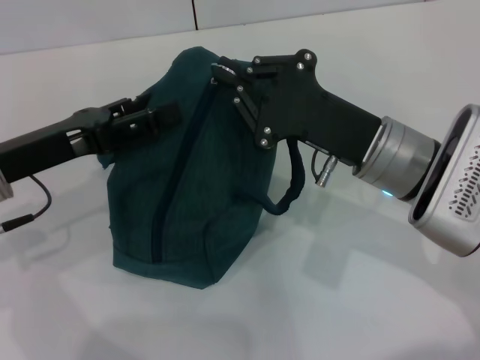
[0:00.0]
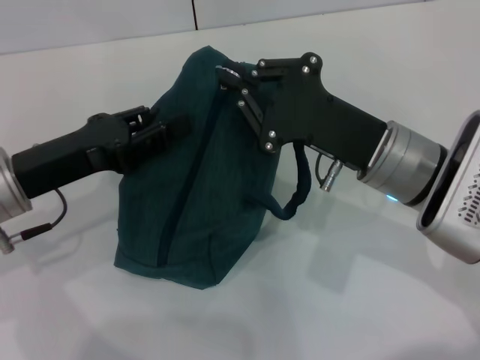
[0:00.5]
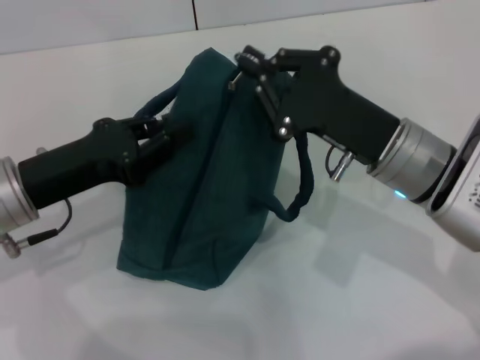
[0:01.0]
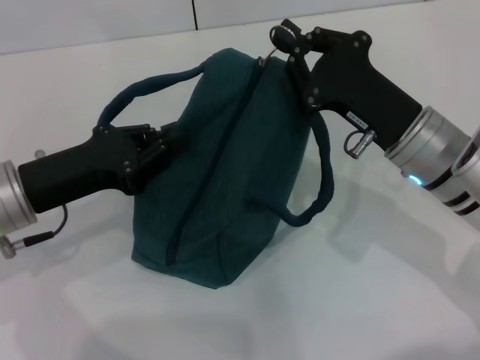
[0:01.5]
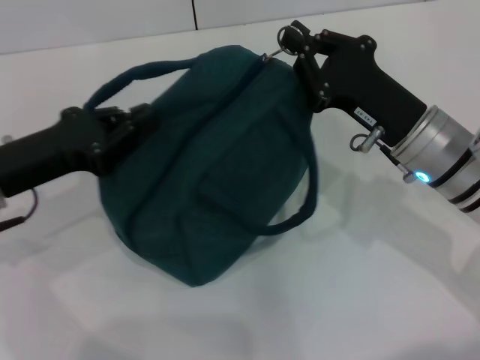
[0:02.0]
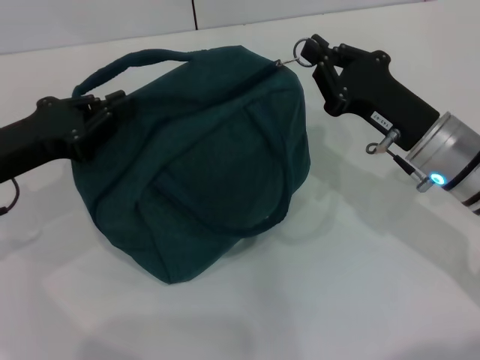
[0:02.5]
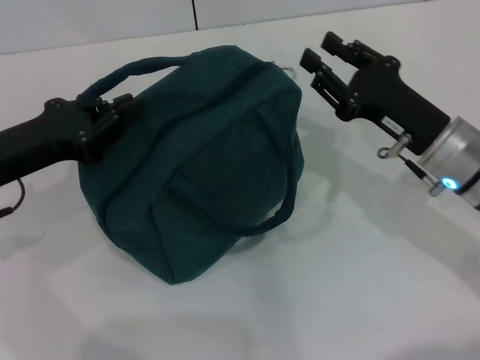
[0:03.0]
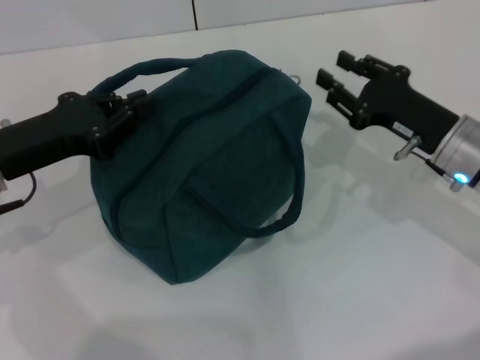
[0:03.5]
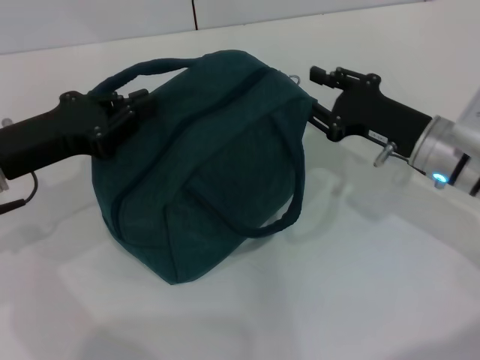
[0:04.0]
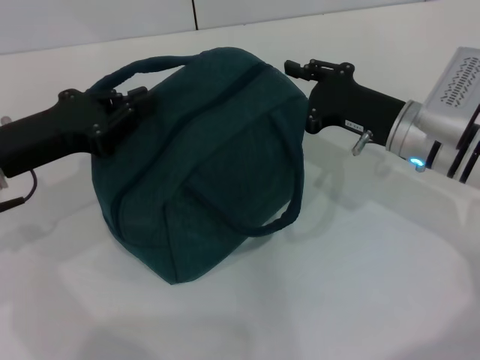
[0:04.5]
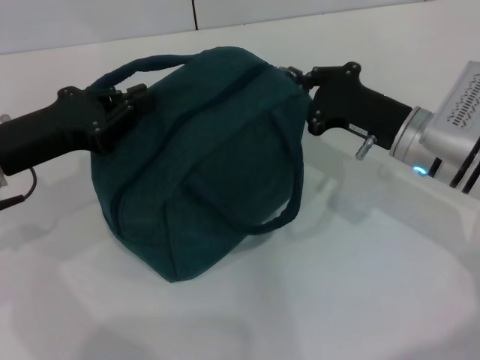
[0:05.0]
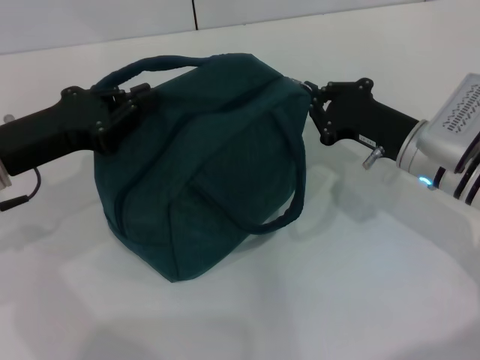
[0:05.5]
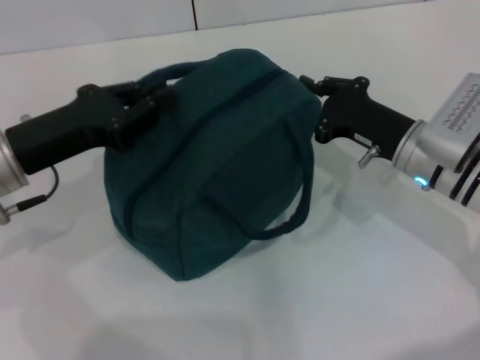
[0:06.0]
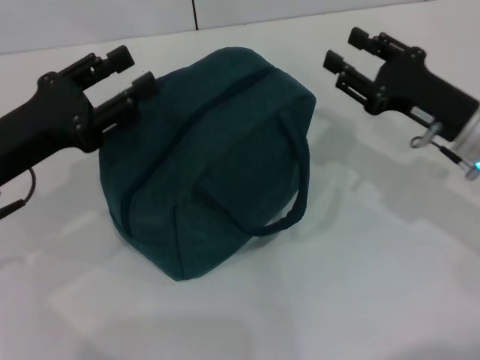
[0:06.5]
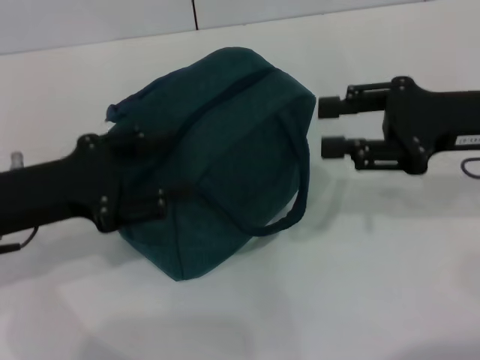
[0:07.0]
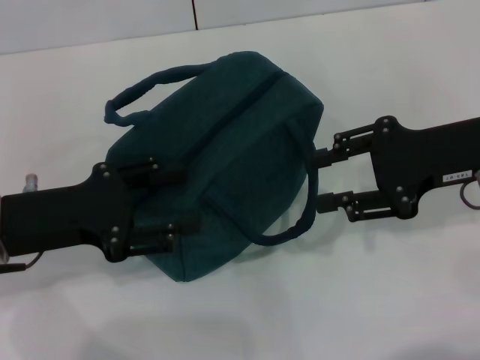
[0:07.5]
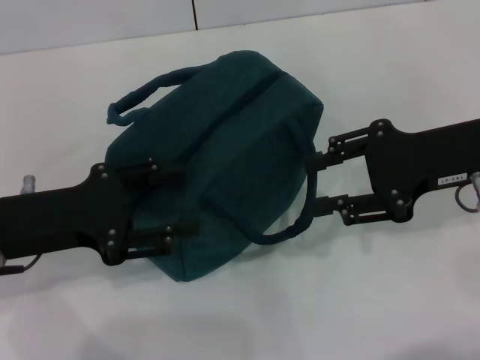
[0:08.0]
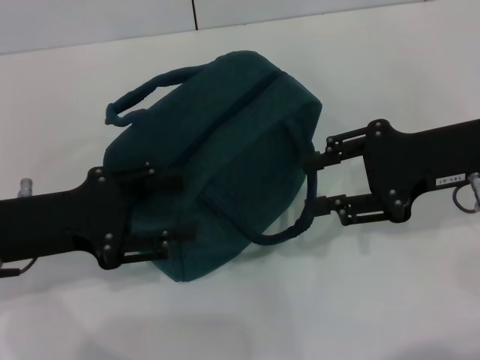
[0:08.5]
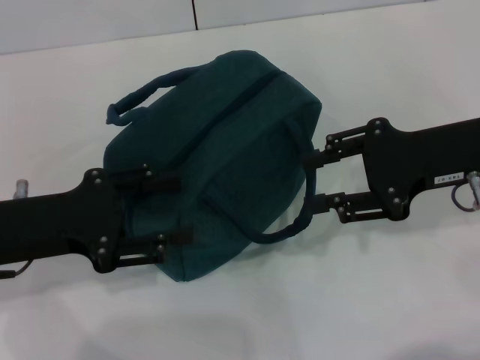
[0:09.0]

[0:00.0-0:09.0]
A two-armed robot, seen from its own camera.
Step, 0:00.0 to 0:02.5: Zip up the lunch bag with your right hand.
Step, 0:03.0 to 0:06.0: Hold the lunch bag with your left hand.
0:00.0 to 0:02.0: The left gripper closes its fingers.
0:02.0 to 0:04.5: The right gripper ends up approximately 5 cm from where it was.
0:04.5 to 0:07.0: The right gripper goes some 10 cm upward and to the right, and closes and opens again. Meanwhile the left gripper opens.
0:07.0 to 0:09.0: The grippers stay close to where they were, moving slightly.
